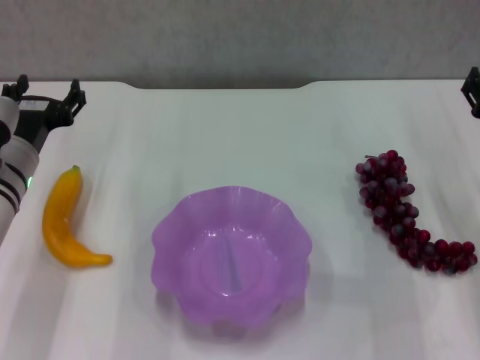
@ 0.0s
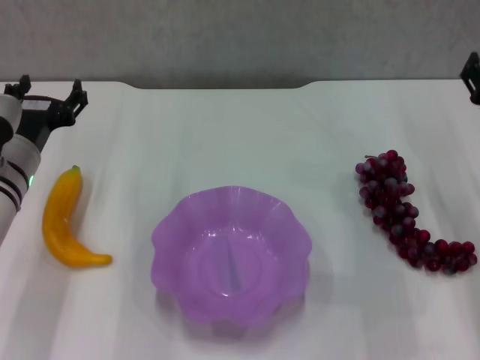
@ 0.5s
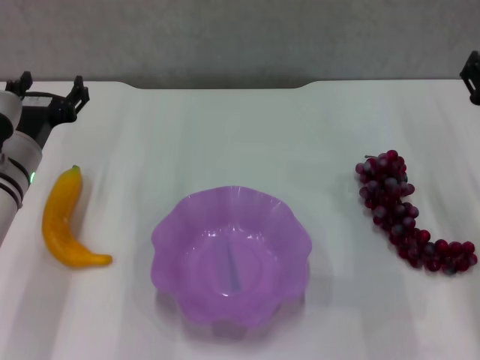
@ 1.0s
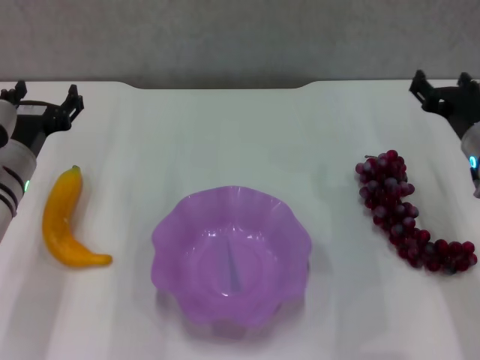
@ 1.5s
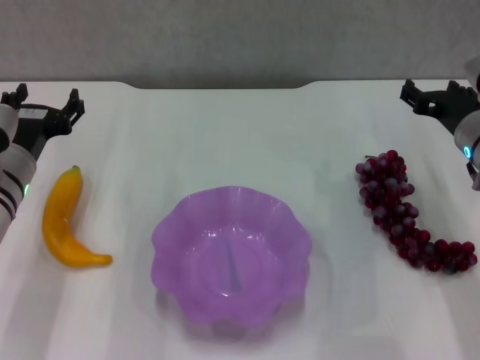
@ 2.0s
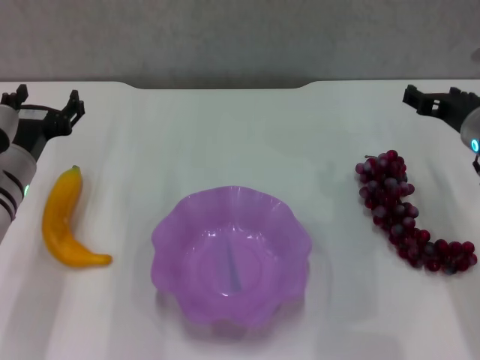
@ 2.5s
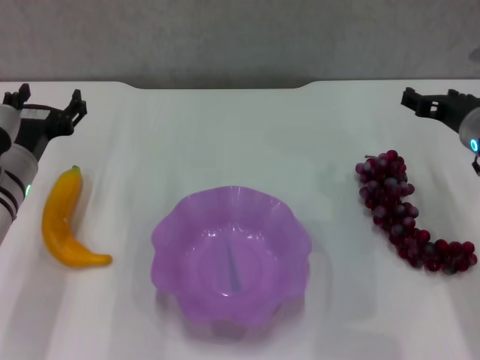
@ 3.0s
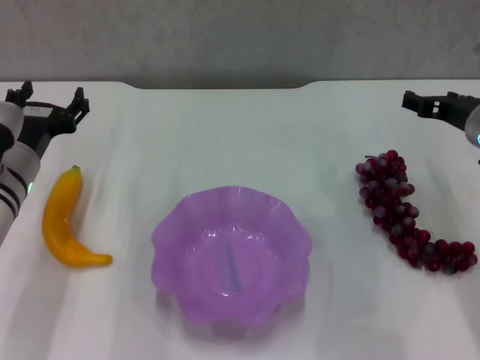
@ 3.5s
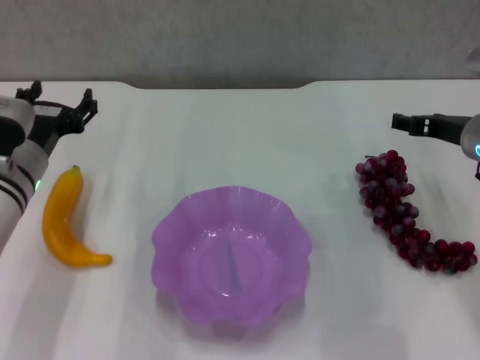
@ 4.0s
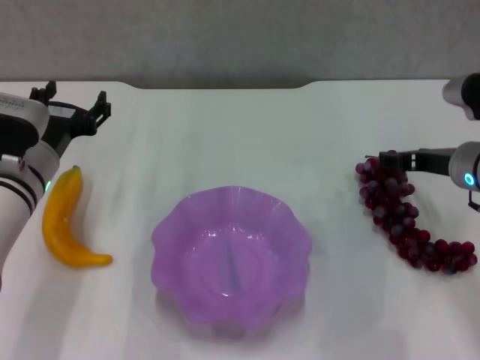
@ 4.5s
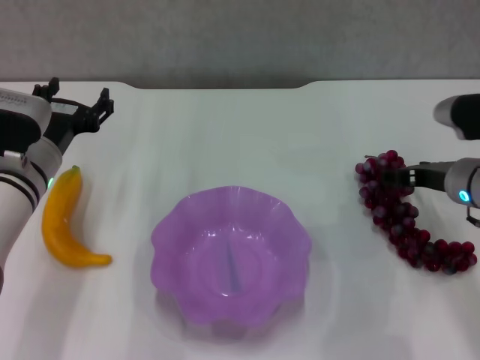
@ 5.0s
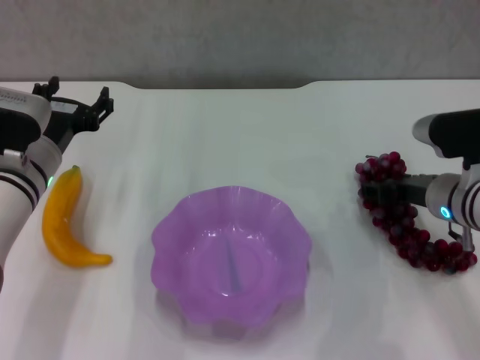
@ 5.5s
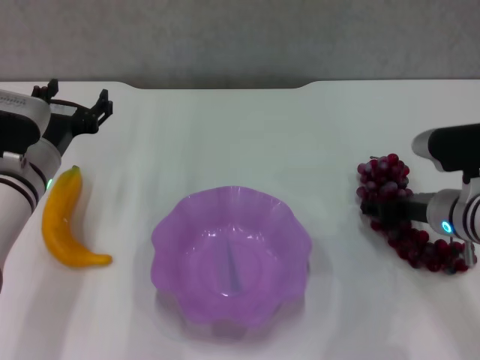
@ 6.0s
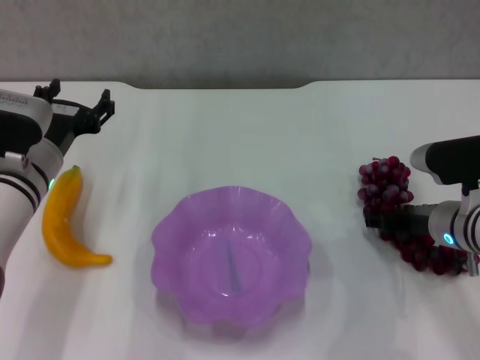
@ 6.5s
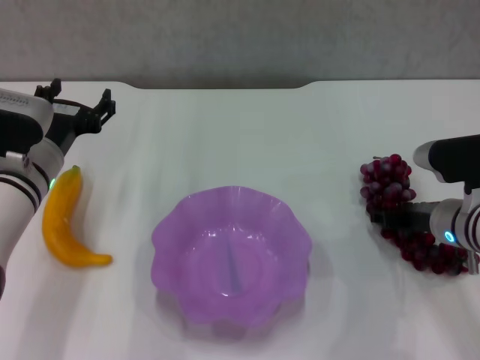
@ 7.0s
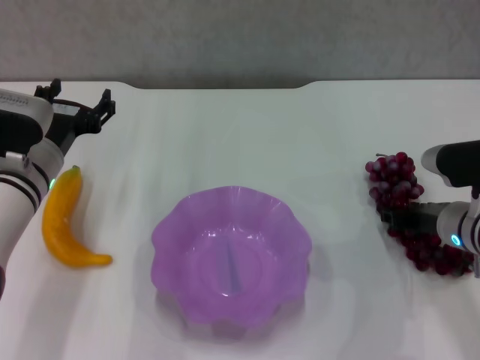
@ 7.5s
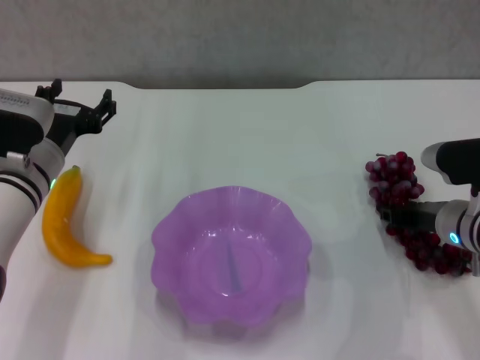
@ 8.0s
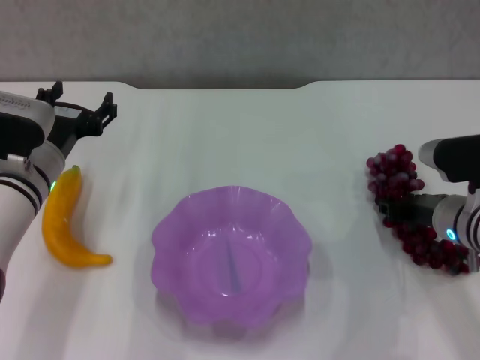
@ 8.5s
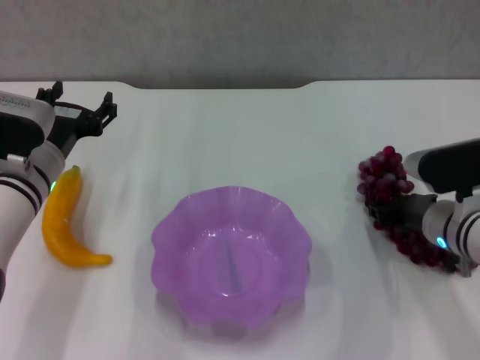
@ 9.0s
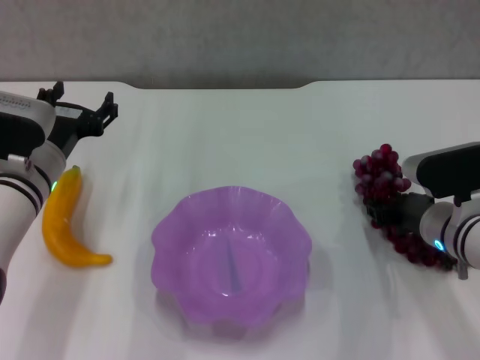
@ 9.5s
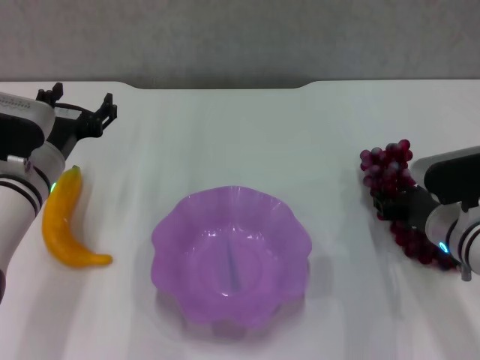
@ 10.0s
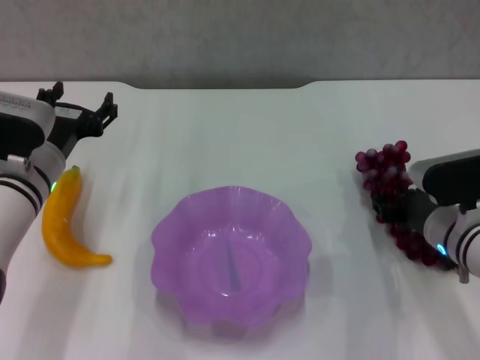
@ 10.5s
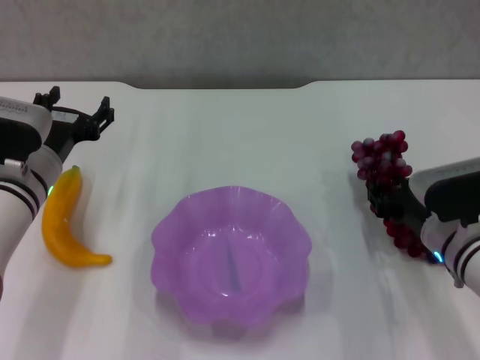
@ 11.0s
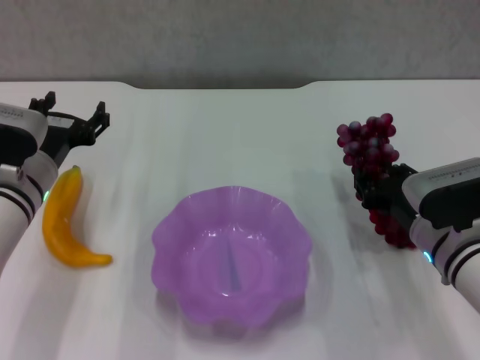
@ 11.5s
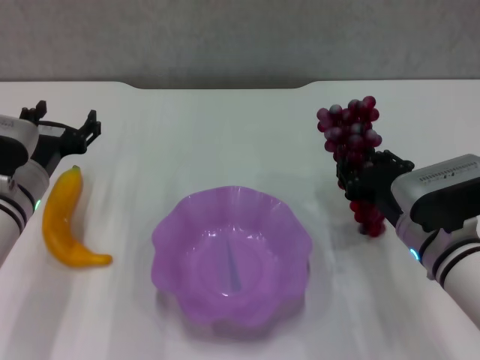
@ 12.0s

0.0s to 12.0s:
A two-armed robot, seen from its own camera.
Step, 0.0s to 8.0s: Grasp the grape with right gripper.
0.0s to 2.0s: The right gripper travels forward by roughly 5 cm.
2.0s to 4.0s: The grippers stay close to where they were, moving slightly.
4.0s to 6.0s: The right gripper is displaced downward by roughly 5 cm.
6.0s to 8.0s: The right gripper closes.
8.0s to 10.0s: There are only small adjustments of the grippers.
10.0s to 12.0s: The right gripper ends up approximately 5 cm from where it was.

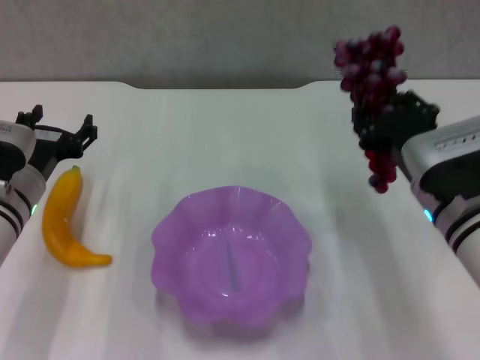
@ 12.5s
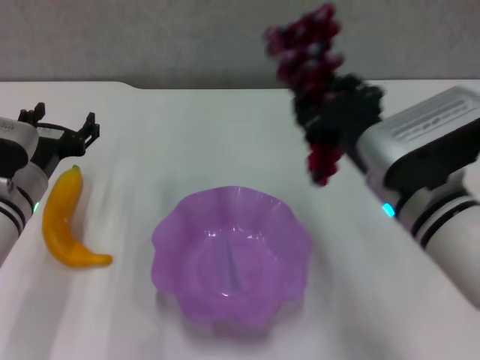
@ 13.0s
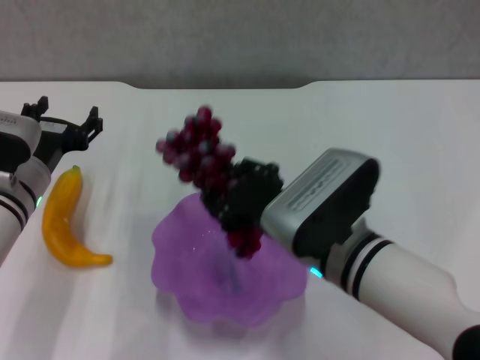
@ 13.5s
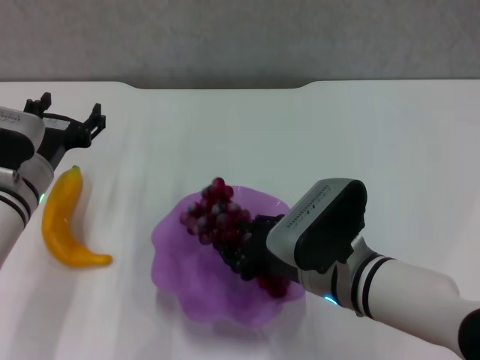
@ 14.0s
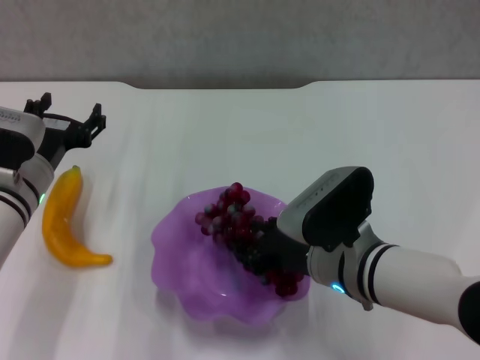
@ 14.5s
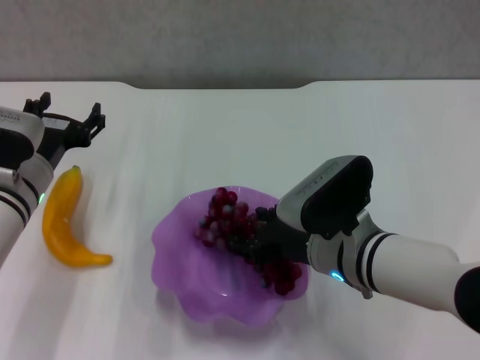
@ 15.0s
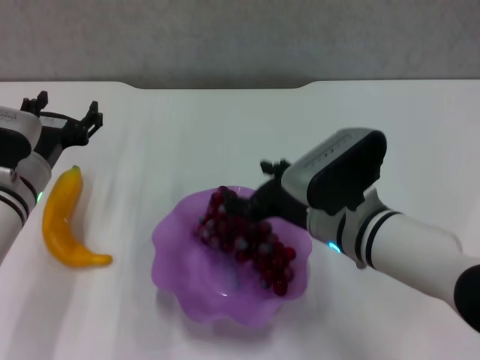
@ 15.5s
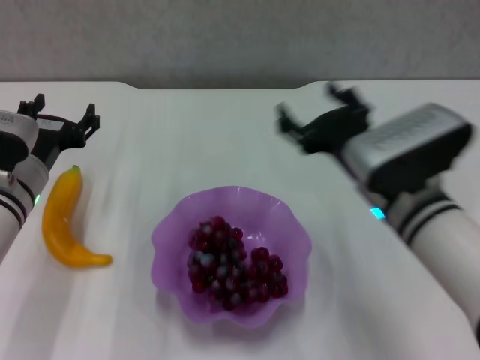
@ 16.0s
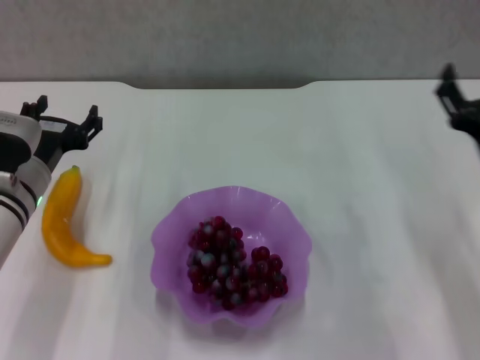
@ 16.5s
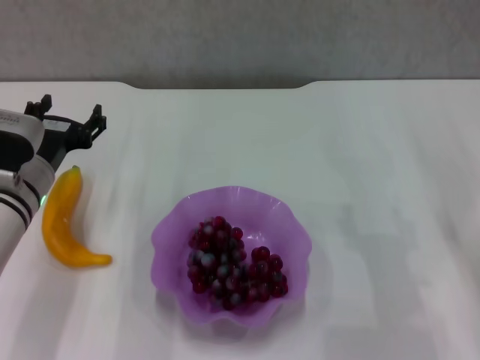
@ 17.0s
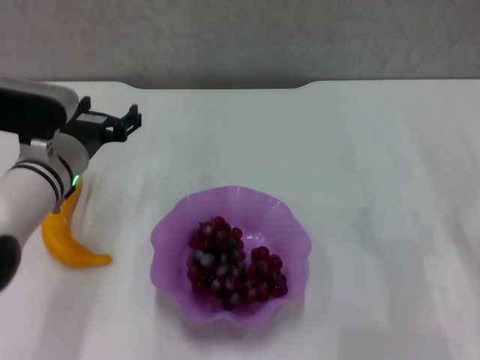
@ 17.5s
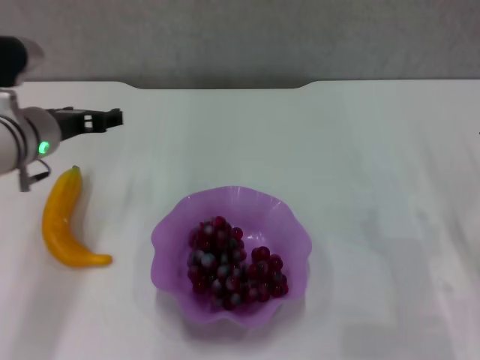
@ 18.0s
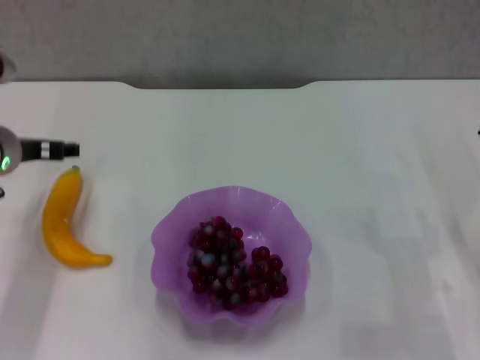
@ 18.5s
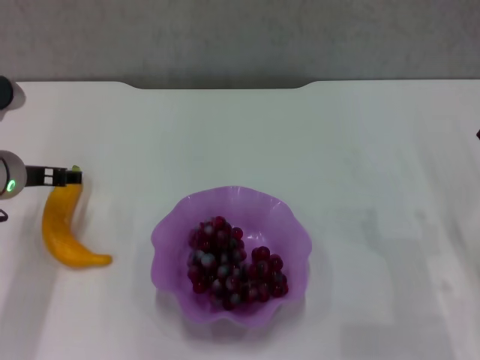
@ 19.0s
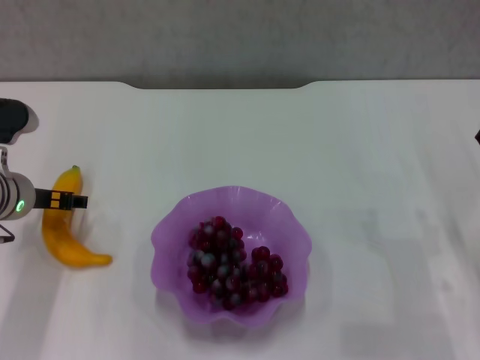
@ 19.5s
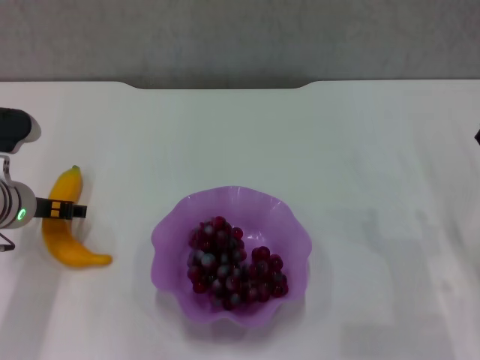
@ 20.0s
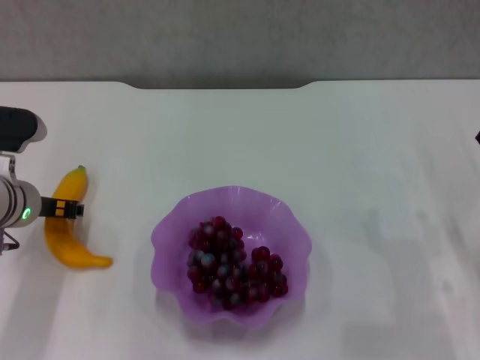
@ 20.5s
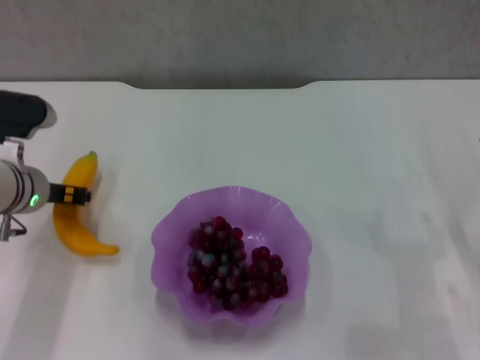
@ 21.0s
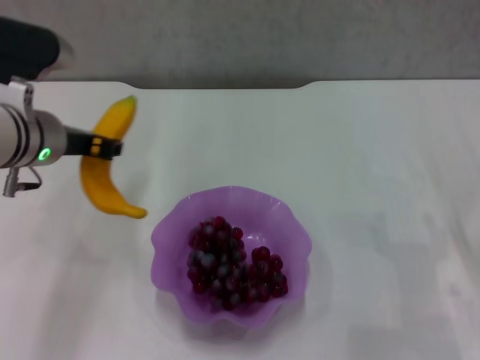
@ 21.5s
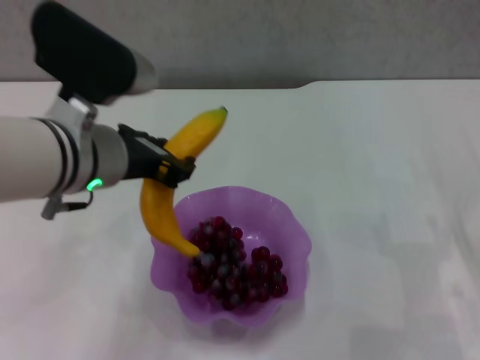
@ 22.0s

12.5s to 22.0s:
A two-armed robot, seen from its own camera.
Step, 12.5s to 15.0s: Place the grape in the purple plate with right gripper.
Step, 16.0s to 20.5s: Grasp the banana with left gripper.
12.5s to 14.5s: The right gripper heads to the left, covering roughly 10 cm.
14.5s to 16.5s: The right gripper shifts approximately 15 cm to the right, and opens up.
16.5s to 18.0s: The right gripper heads to the right, covering about 5 cm. The left gripper is displaced upward by about 5 cm.
18.0s to 20.0s: The left gripper shifts approximately 5 cm downward.
20.0s to 22.0s: The left gripper shifts approximately 20 cm upward, to the right and backward, and closes.

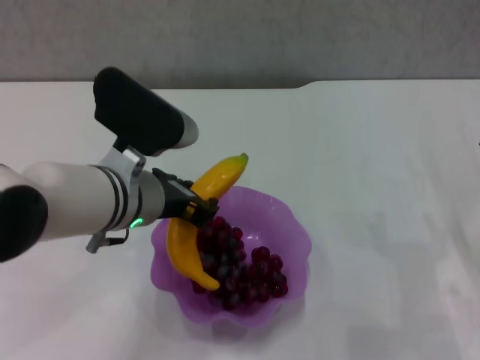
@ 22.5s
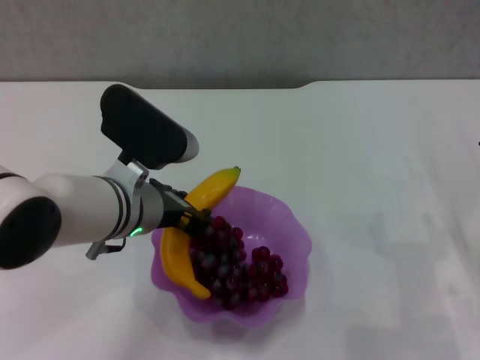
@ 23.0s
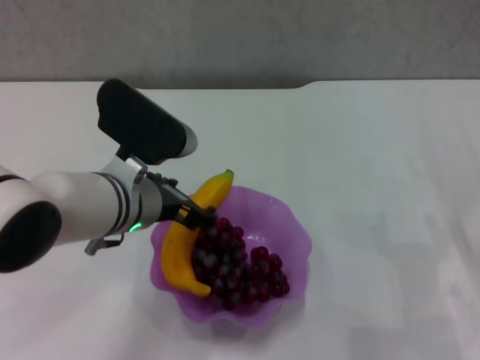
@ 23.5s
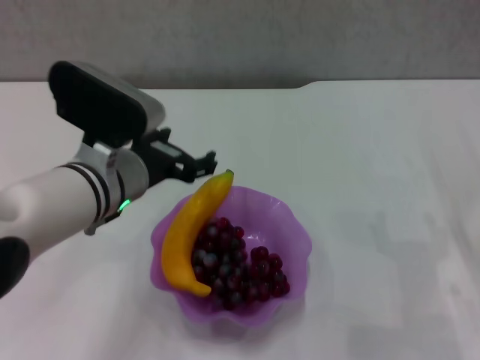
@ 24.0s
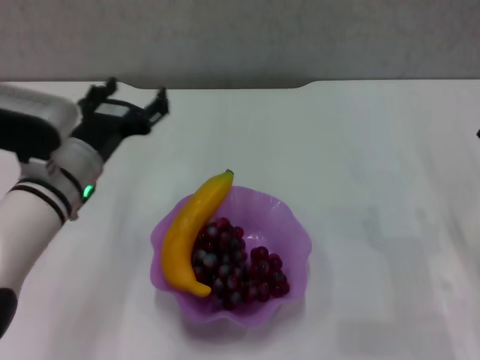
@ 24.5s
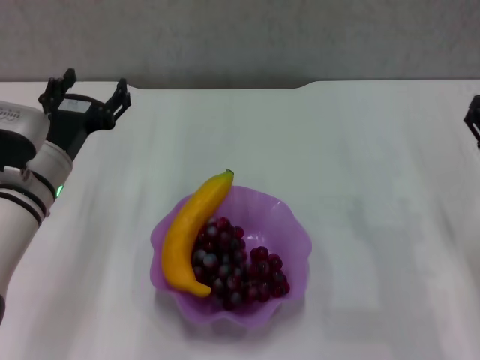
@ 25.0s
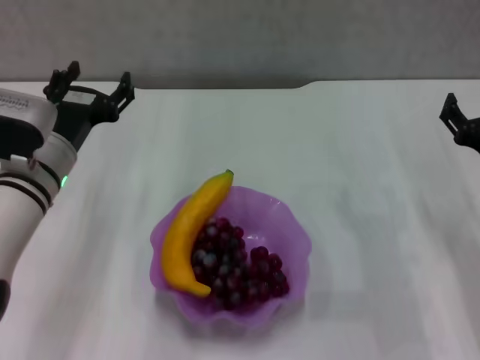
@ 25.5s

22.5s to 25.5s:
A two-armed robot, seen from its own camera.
22.5s to 24.0s: The left gripper opens its fingers.
24.0s to 25.5s: The right gripper ends up approximately 5 cm from where it was. The left gripper shifts some 10 cm to the left.

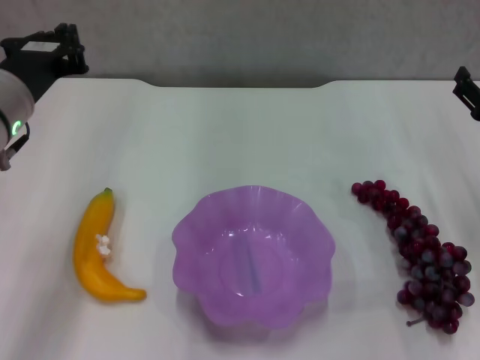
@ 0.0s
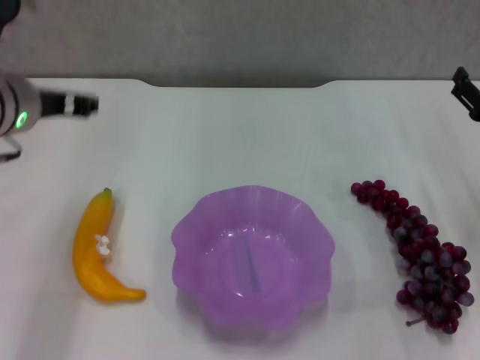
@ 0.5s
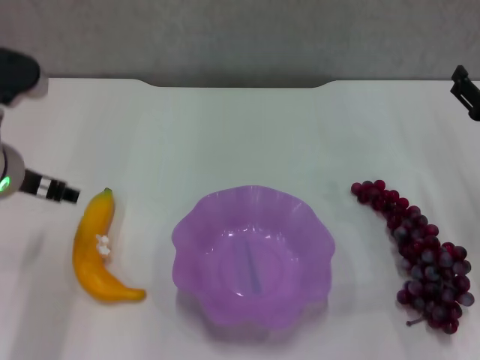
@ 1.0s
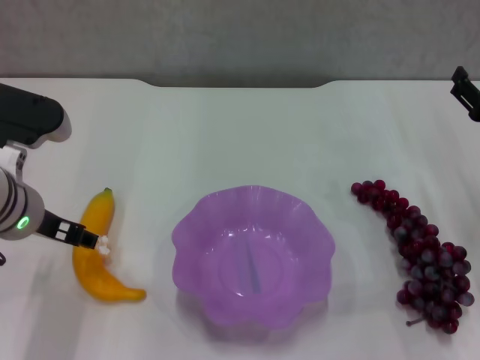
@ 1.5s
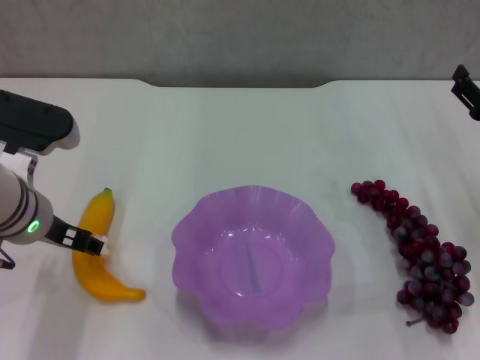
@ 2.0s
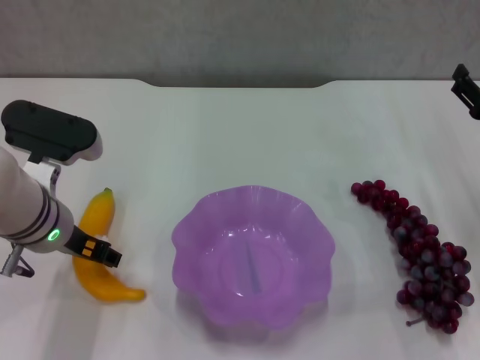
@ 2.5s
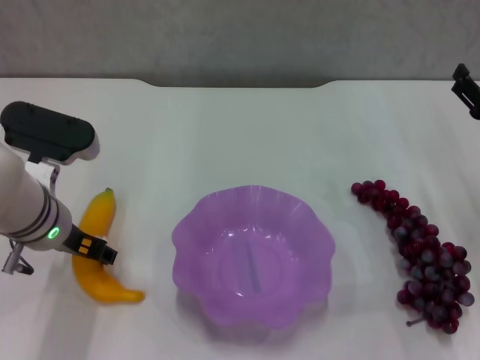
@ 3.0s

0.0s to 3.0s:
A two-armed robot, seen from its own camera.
0.0s to 1.5s: The left gripper opens.
1.5s to 3.0s: The grippers stay close to where they were, moving slightly.
